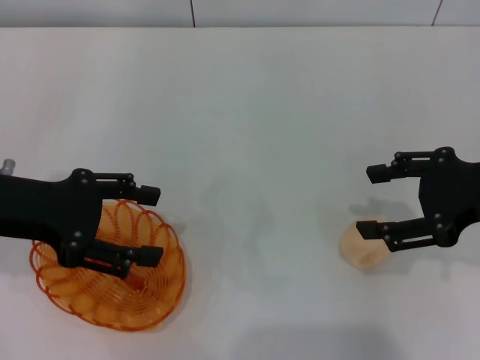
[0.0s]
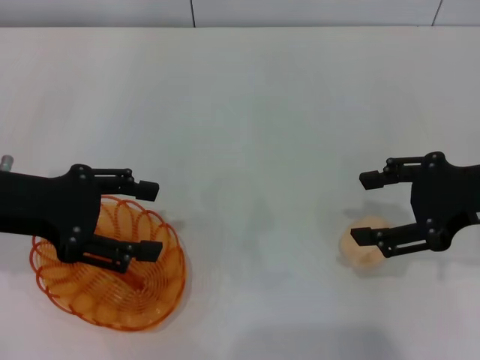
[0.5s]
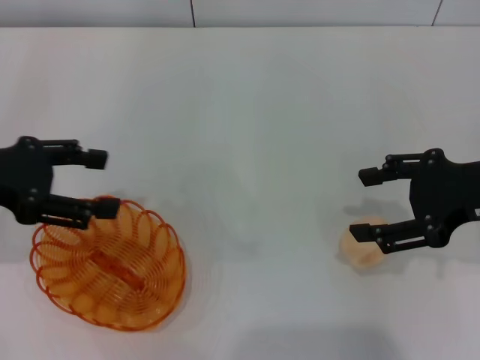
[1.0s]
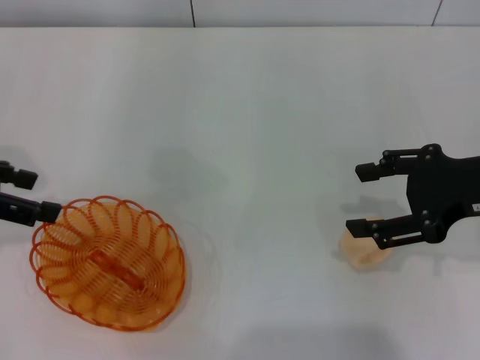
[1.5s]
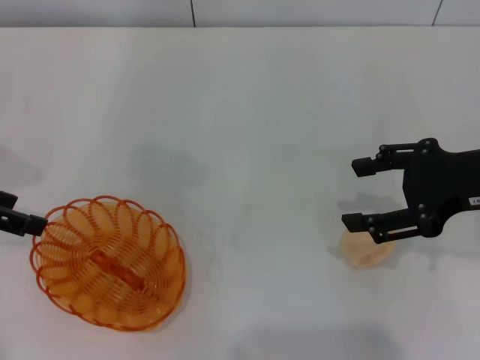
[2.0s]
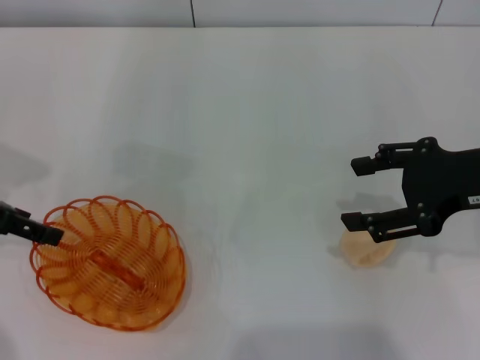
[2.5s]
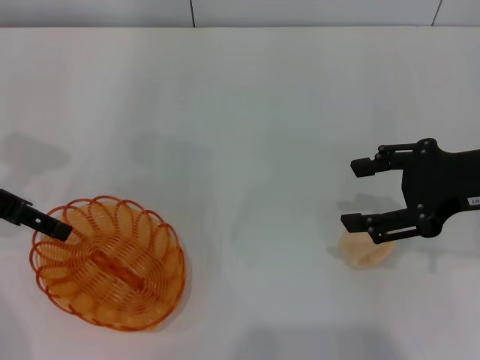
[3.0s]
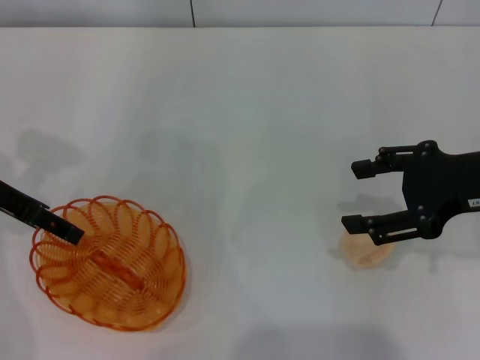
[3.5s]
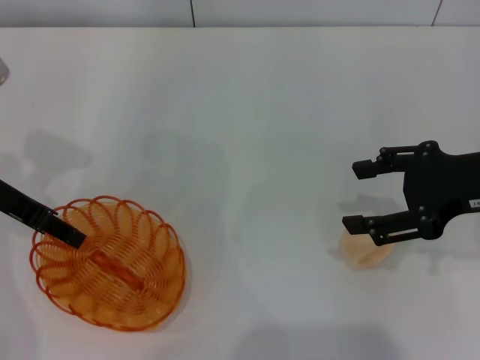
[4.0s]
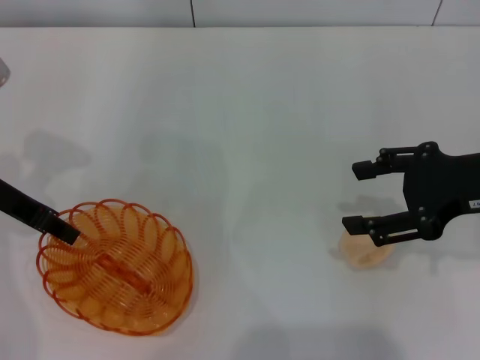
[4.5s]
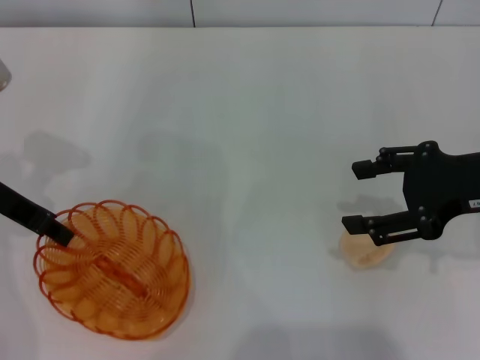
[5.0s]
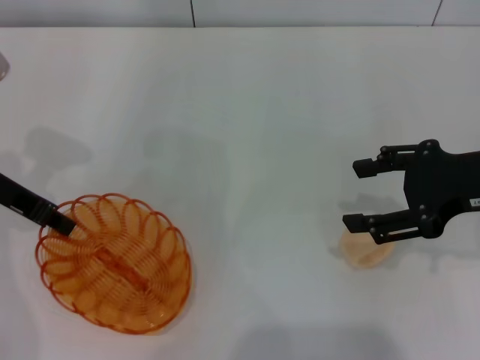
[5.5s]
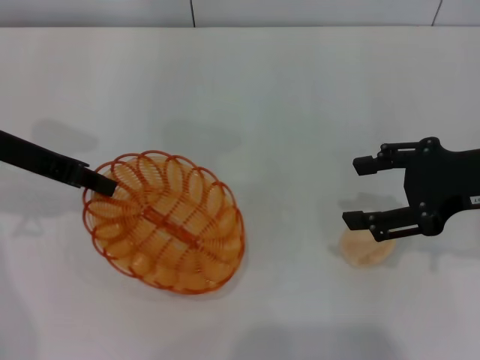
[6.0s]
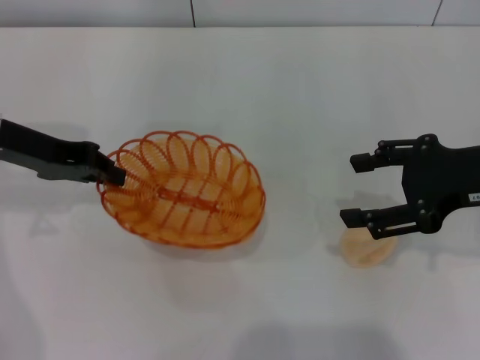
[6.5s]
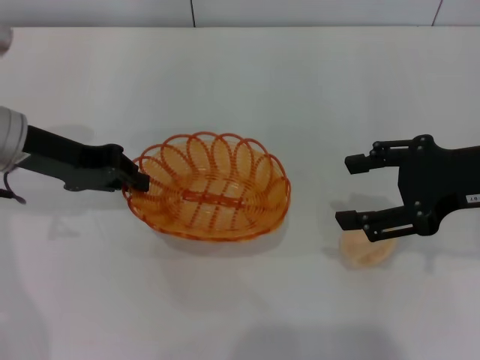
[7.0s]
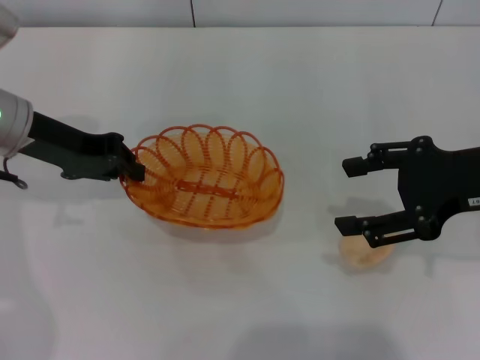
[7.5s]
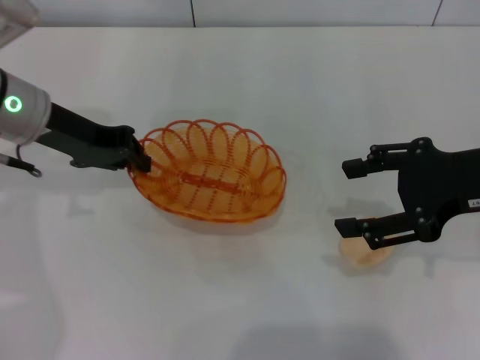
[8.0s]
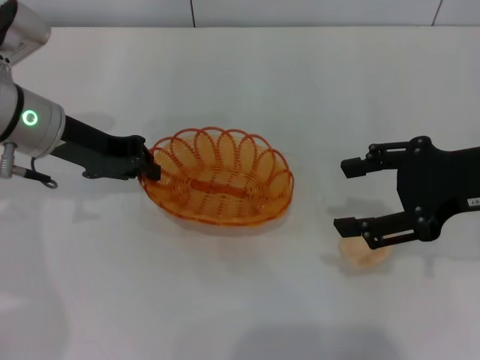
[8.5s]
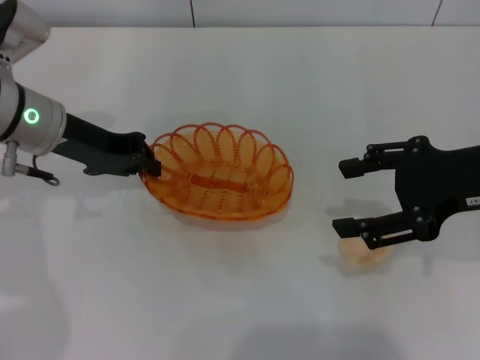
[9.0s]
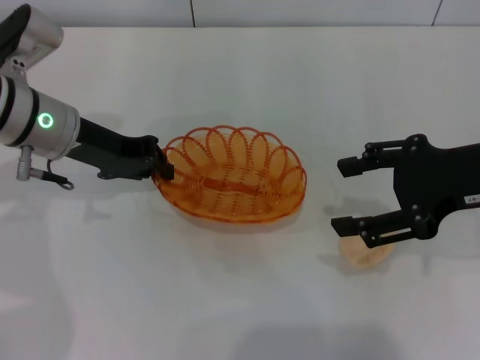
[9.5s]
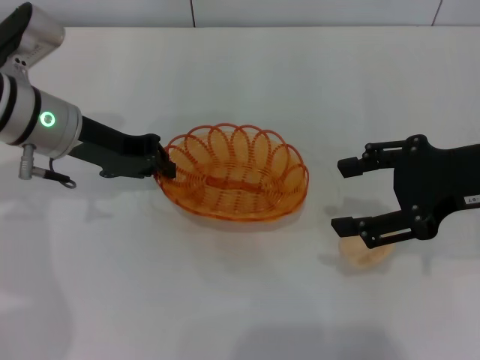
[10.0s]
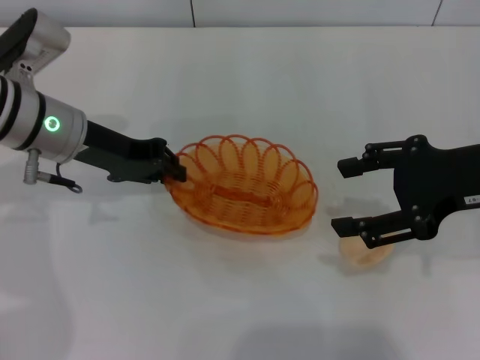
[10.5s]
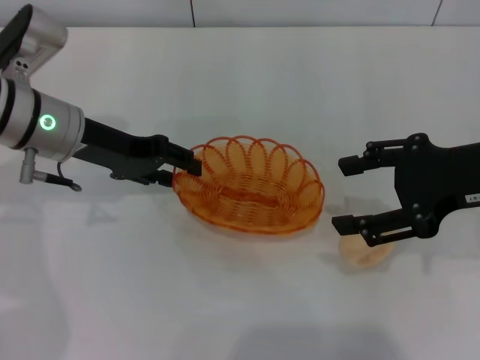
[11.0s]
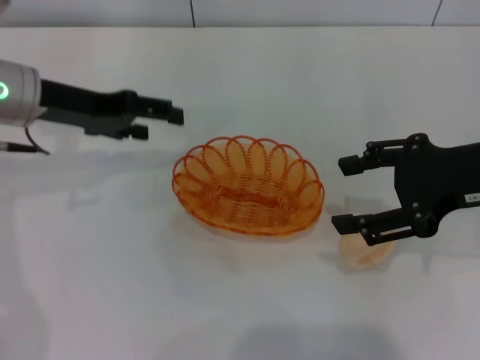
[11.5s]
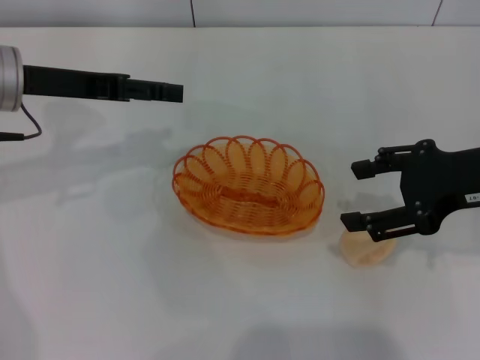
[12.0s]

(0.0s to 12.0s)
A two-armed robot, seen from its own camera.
Step, 0.0s - 7.0s: Pick up the basket with the left gripper.
Step, 7.5s - 11.0s: Place the basket in the center of view with the left gripper.
0.0s - 2.0s: The left gripper is displaced to the left by some 5 cm.
2.0s - 4.0s: The left gripper shifts roughly 5 cm to the right, and closes up.
4.0s - 6.0s: The left gripper closes its fingers.
6.0s - 8.0s: The left gripper ends up about 5 cm from where it was.
8.0s - 10.0s: There are only small adjustments of the grippers.
10.0s - 12.0s: The left gripper moves some 5 cm, and opens.

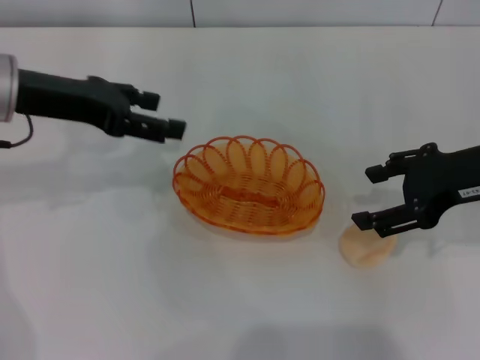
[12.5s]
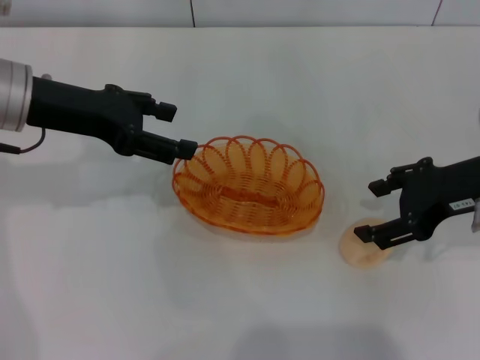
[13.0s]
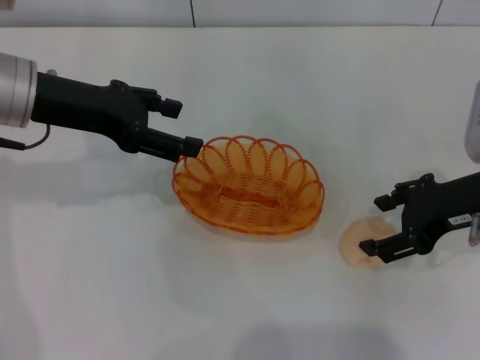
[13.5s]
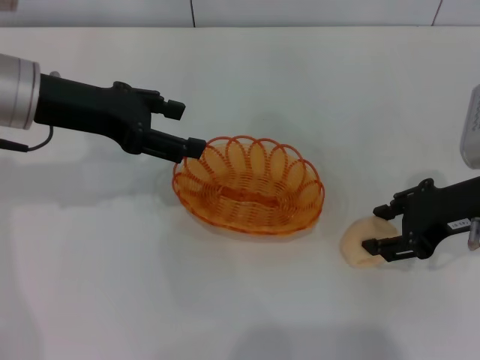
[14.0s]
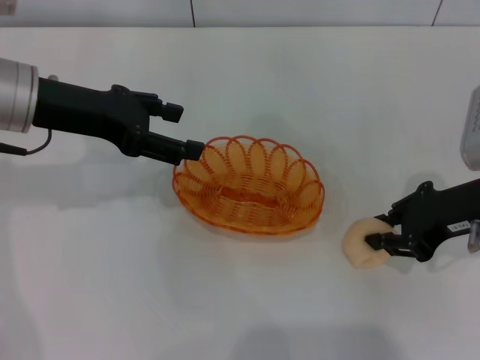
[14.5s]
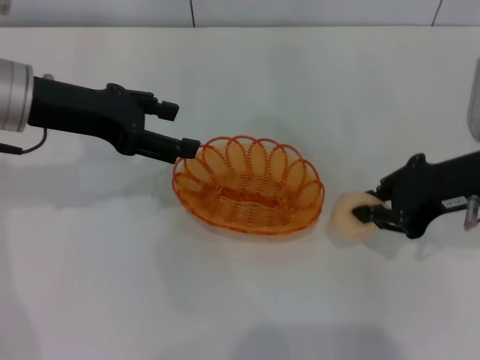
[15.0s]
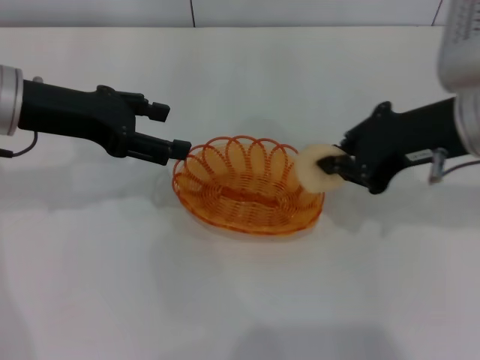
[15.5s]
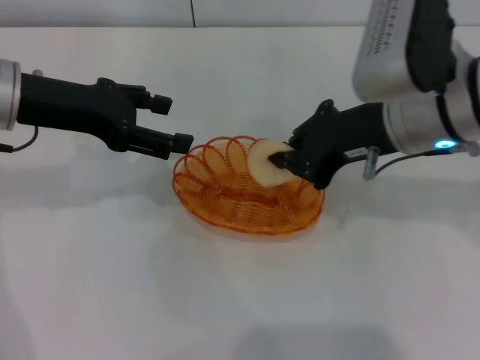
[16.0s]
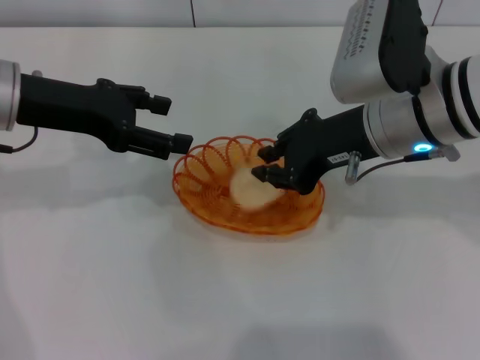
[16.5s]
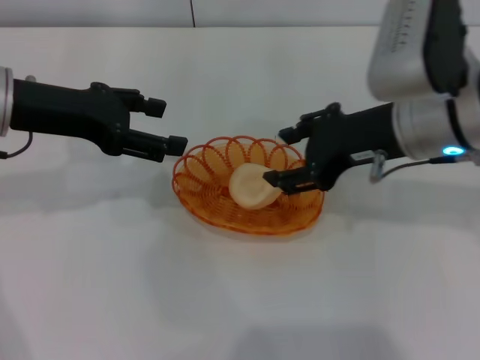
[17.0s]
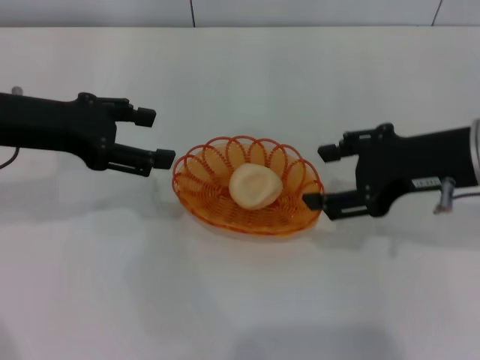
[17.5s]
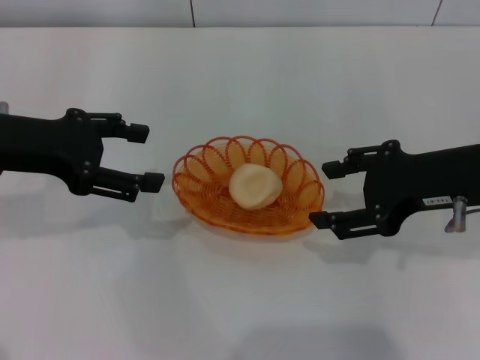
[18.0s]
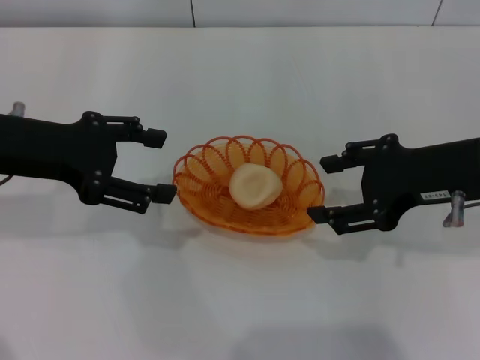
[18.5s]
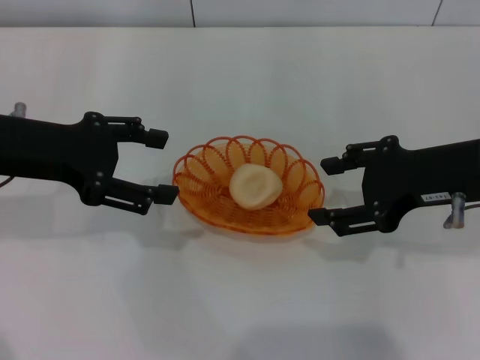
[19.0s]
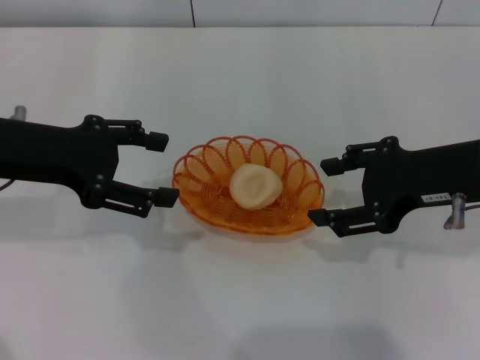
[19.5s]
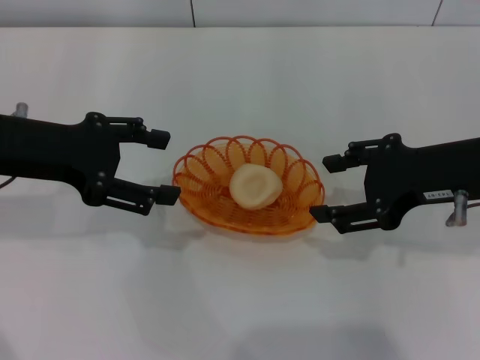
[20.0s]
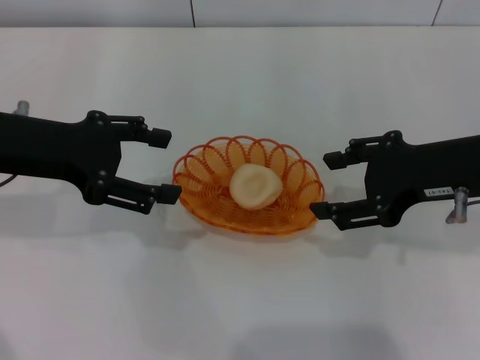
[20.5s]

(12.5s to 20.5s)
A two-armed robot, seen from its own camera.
Step, 12.5s - 15.0s: Pick up the egg yolk pastry with the right gripper.
Step, 15.5s - 18.0s: Place the egg yolk pastry into the basket with the right gripper.
12.5s - 14.5s: The right gripper closes up.
14.5s - 16.5s: The right gripper is displaced to the left by roughly 10 cm.
16.5s - 18.5s: The right gripper heads to the right, covering some 10 cm, and opens up.
18.5s - 20.5s: Both grippers stay about where they are.
